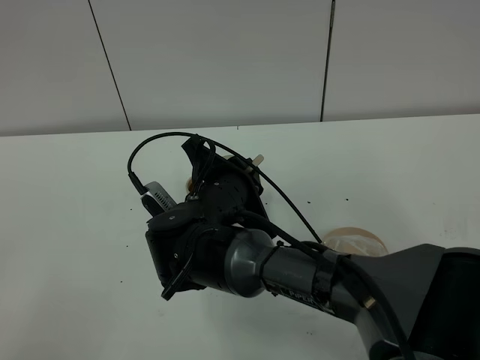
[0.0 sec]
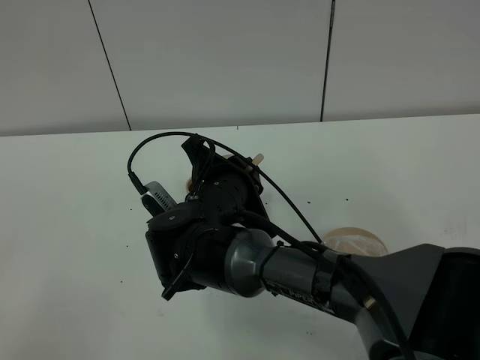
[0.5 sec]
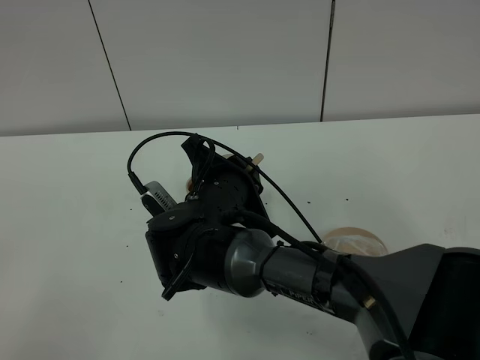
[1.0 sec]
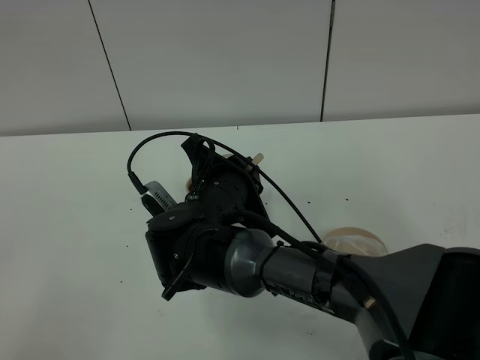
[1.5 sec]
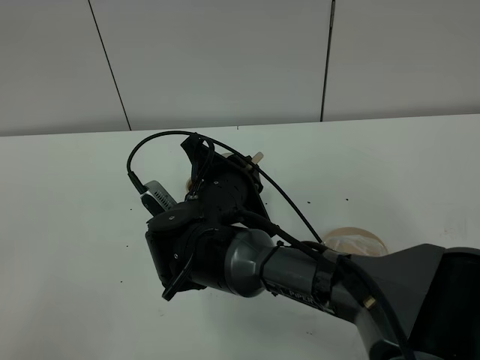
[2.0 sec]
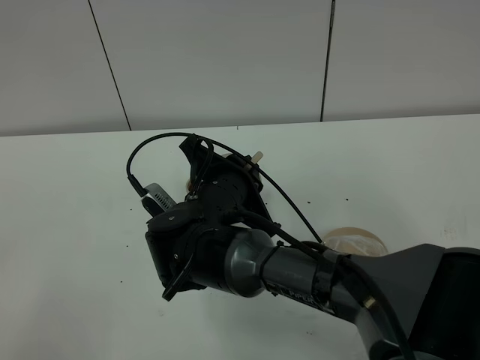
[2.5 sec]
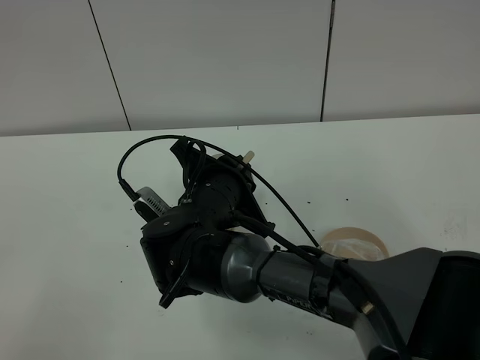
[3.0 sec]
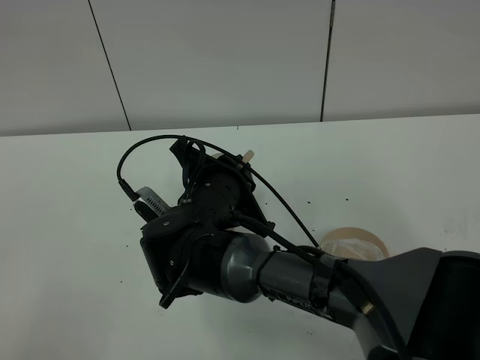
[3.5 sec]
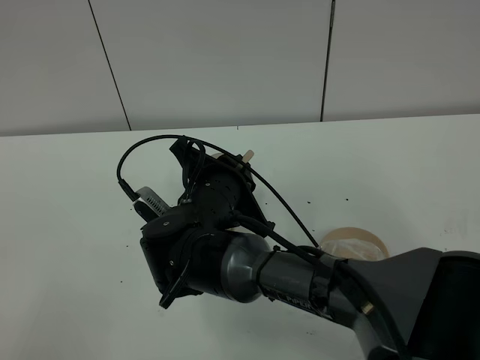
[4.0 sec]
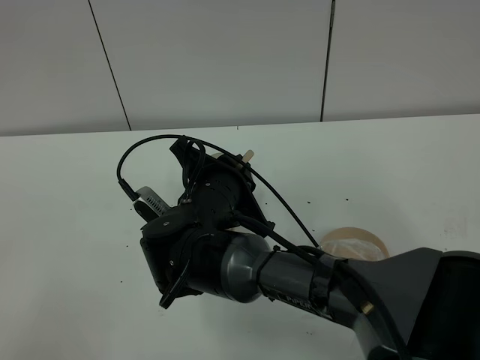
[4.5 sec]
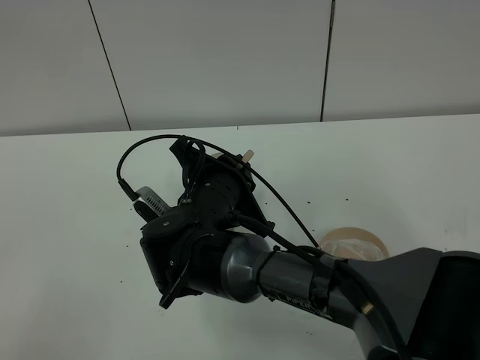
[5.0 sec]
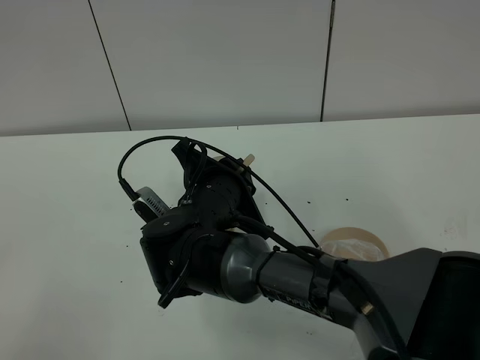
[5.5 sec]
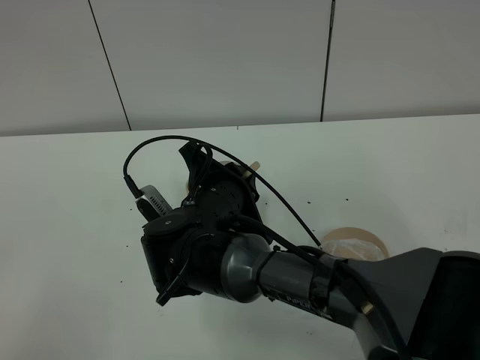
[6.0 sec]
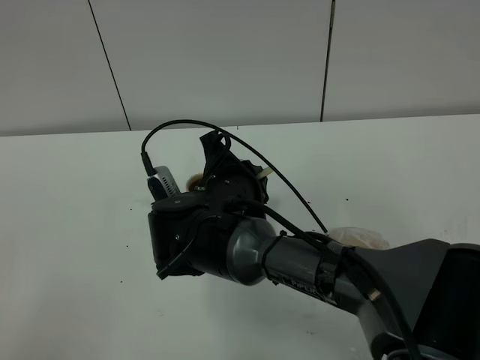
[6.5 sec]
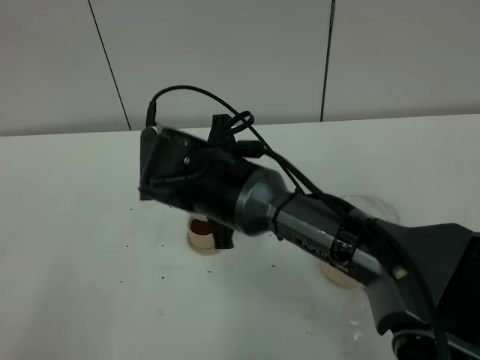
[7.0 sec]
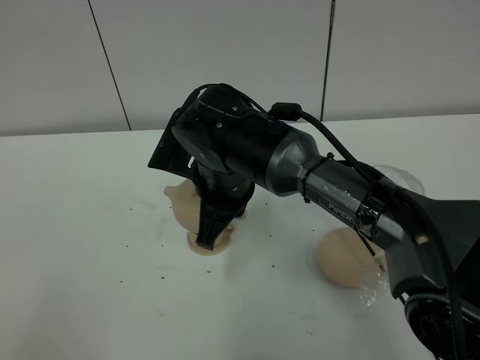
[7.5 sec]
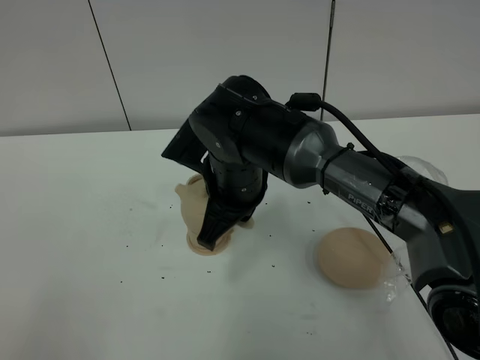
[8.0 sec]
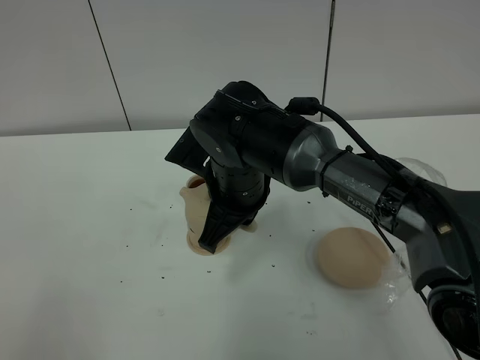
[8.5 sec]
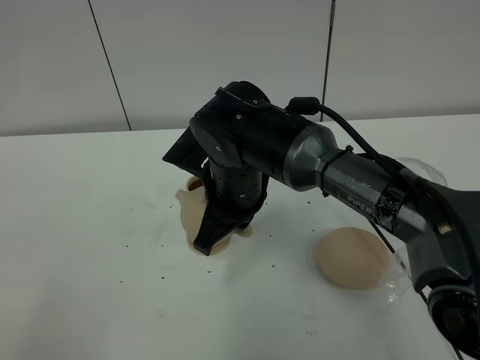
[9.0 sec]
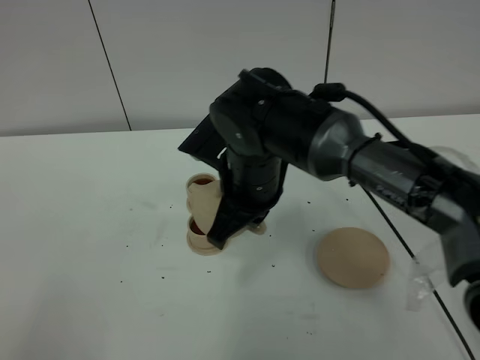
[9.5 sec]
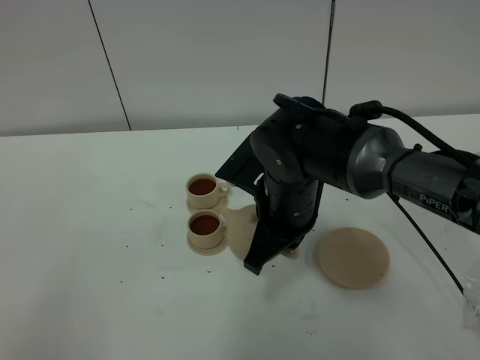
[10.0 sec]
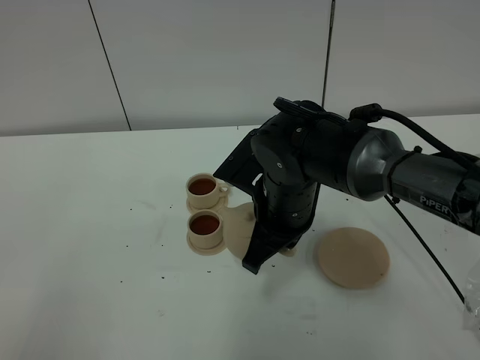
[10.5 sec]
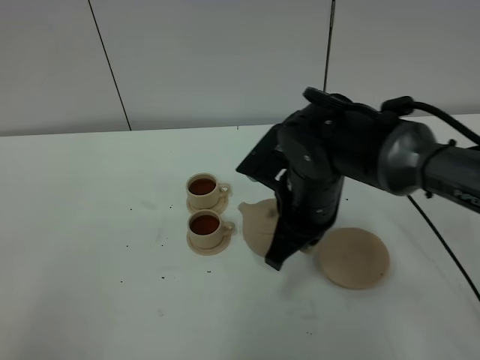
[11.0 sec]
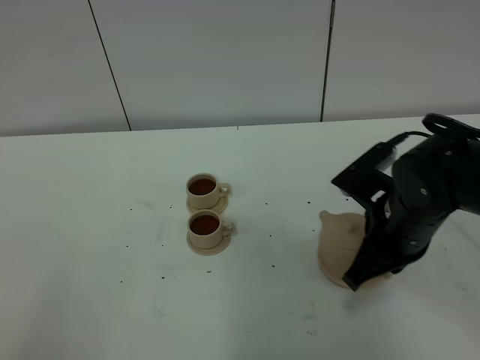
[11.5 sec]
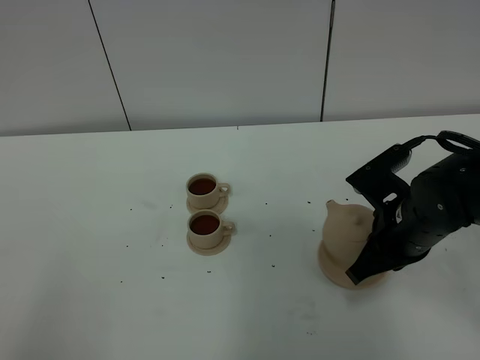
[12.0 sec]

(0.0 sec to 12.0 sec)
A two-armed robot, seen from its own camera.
Task of the whole recording: grasp the brown teapot and pour the tea into the two brown teacups one by one, put the brown teapot back in its original place.
Step, 0.0 sec - 7.0 sec: Pour tea into the teacup with the right gripper.
0.0 sec - 2.0 sec: Neither gripper changes place.
2.0 sec - 4.0 sec: The two grippers keep their place.
4.0 sec - 6.0 sec: The grippers make only small movements.
6.0 sec - 8.0 sec: The right gripper travels upward by about 5 cm.
8.0 sec - 10.0 sec: The right gripper travels to the right by roughly 5 cm.
10.0 sec - 12.0 sec: The right gripper moves to the right, approximately 15 cm.

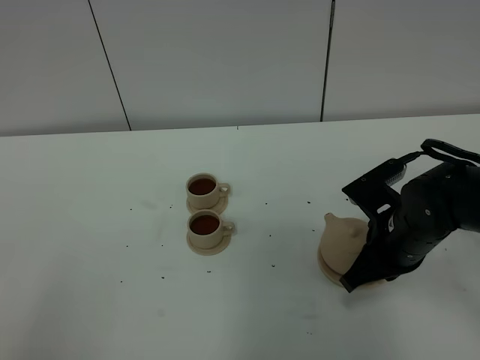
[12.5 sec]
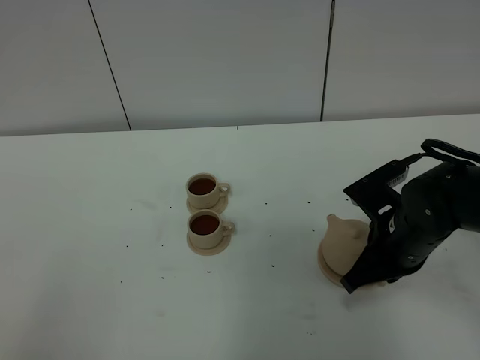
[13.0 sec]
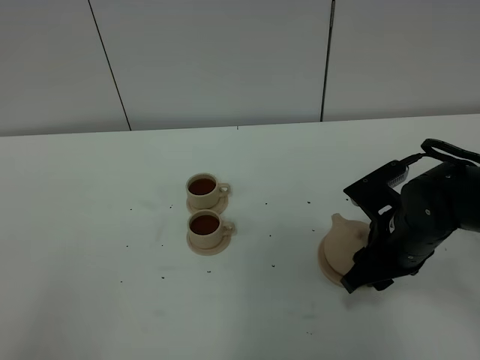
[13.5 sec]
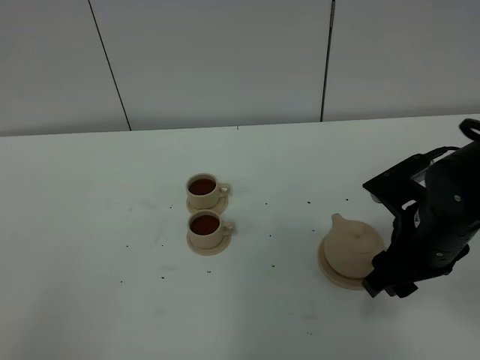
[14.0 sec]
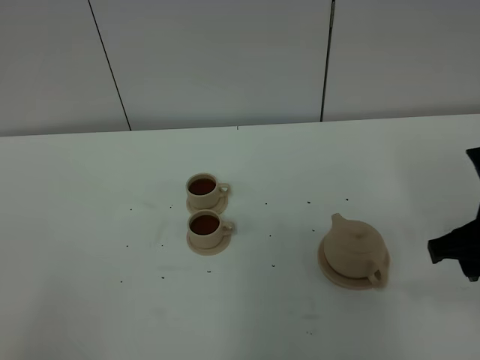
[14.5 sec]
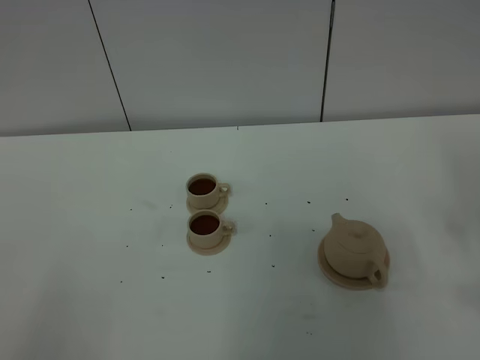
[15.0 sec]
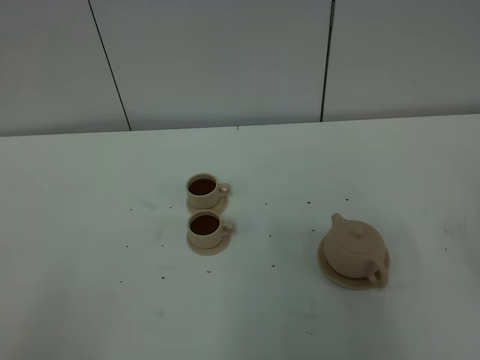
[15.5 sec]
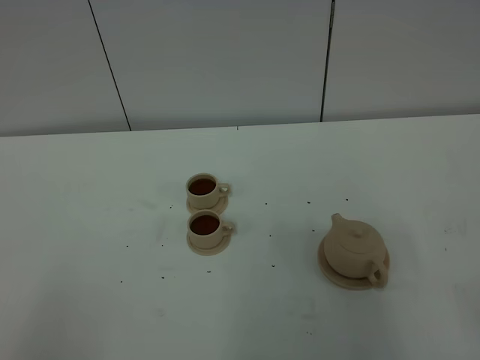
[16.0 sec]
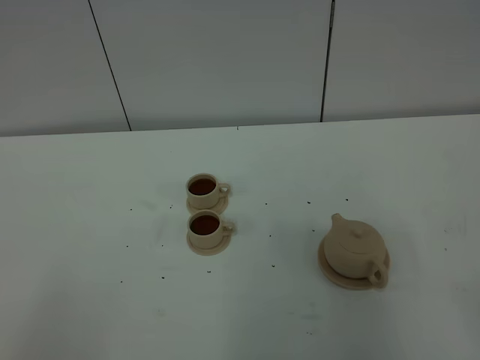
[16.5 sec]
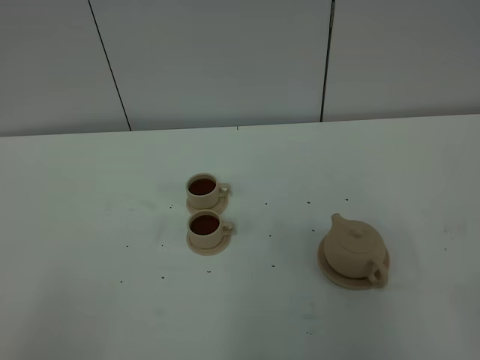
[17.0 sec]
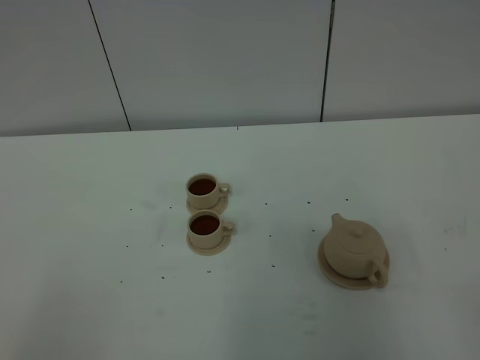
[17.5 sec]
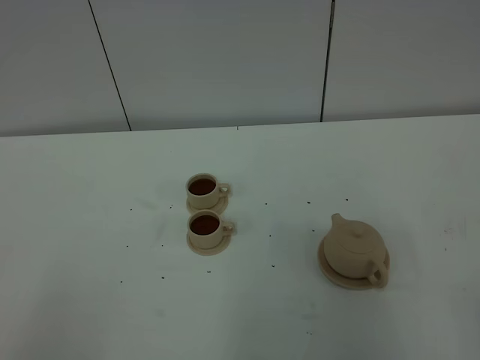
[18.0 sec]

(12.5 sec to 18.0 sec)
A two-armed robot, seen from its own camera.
Task of the whole recording: grasp the brown teapot and pour the tea into the two brown teacups one by one, put the brown teapot back in its original place.
12.5 sec - 14.5 sec: The right gripper heads upward and to the right, covering some 10 cm, and opens.
14.5 sec - 16.0 sec: The right gripper heads backward, covering approximately 20 cm.

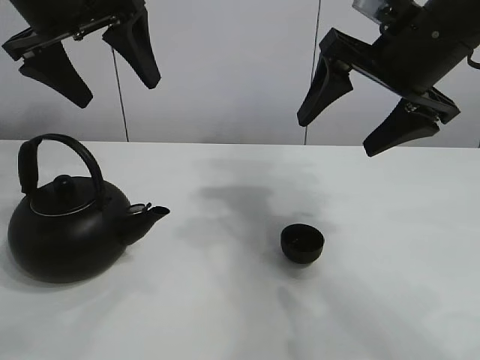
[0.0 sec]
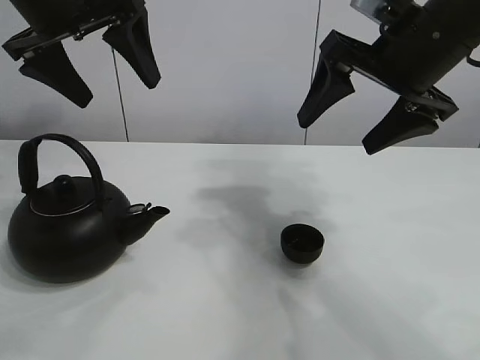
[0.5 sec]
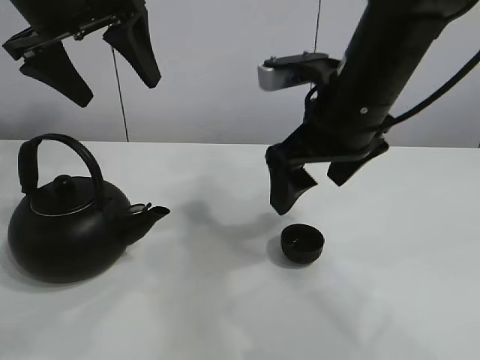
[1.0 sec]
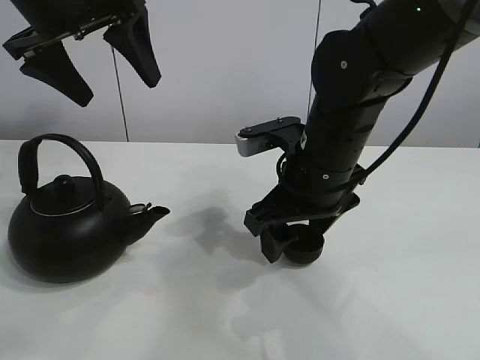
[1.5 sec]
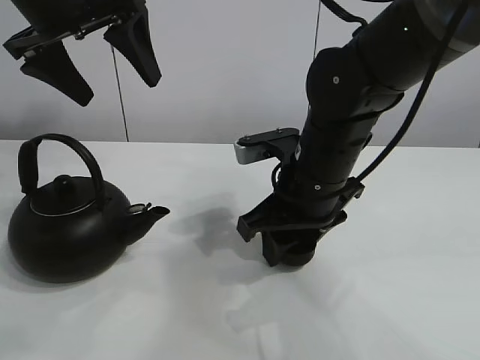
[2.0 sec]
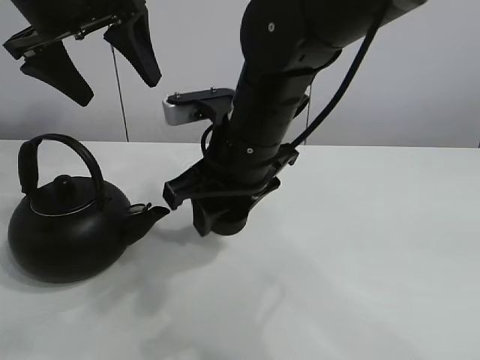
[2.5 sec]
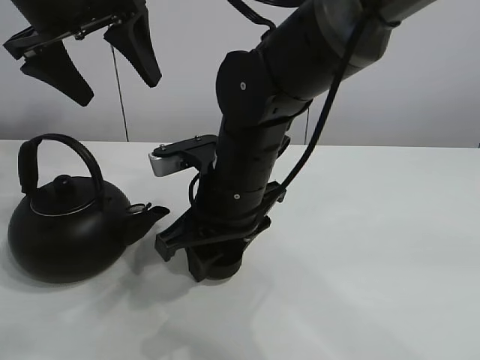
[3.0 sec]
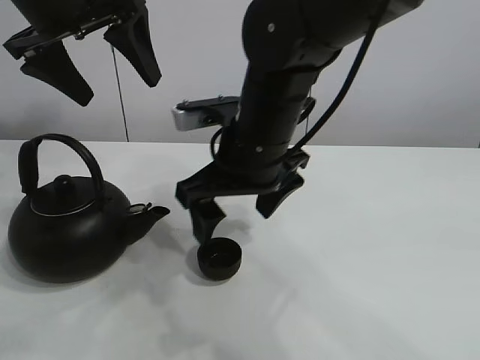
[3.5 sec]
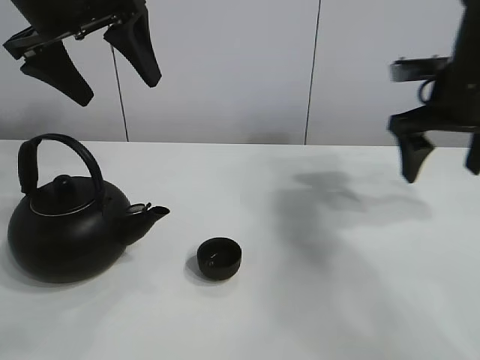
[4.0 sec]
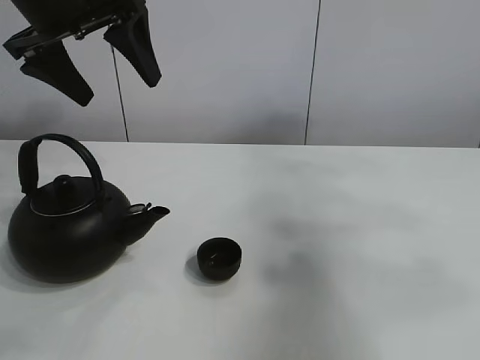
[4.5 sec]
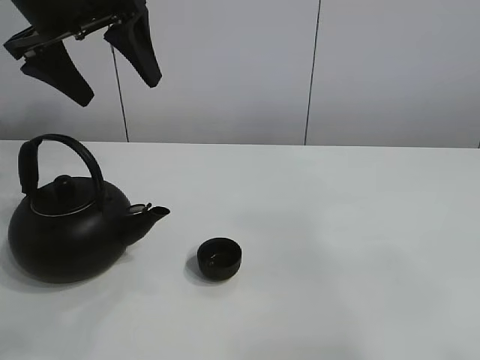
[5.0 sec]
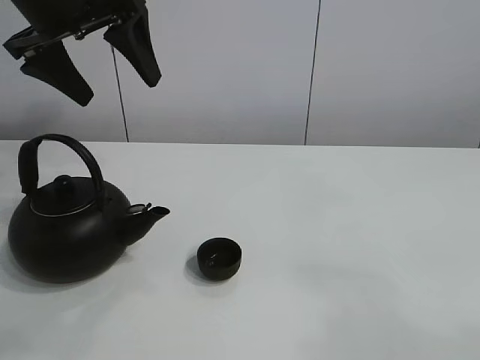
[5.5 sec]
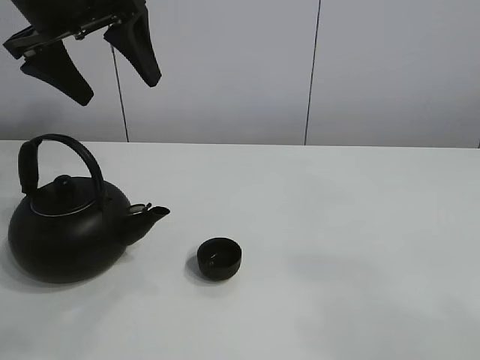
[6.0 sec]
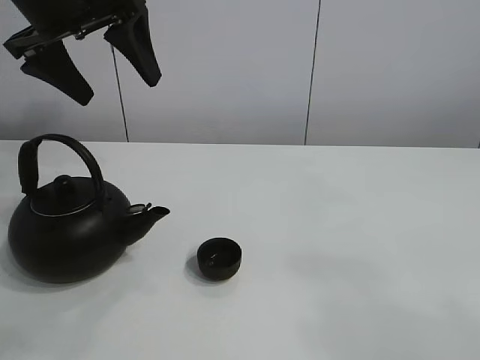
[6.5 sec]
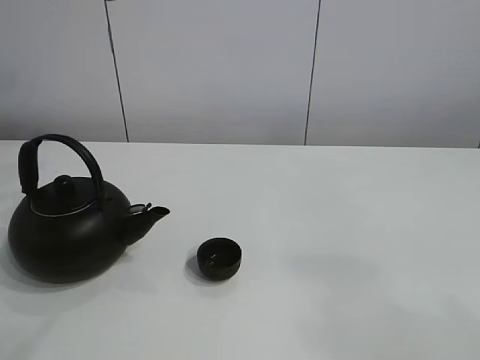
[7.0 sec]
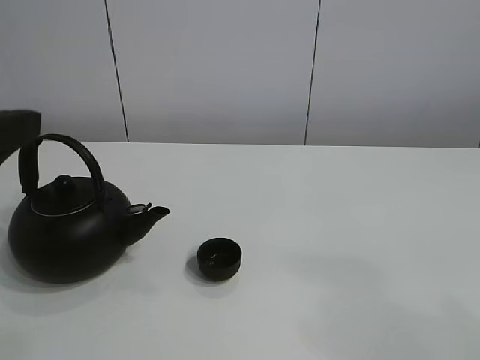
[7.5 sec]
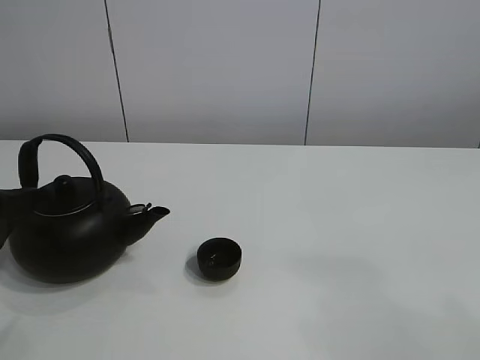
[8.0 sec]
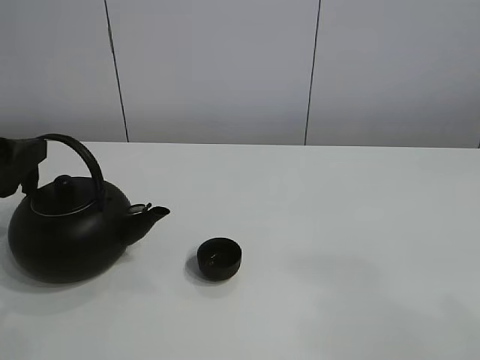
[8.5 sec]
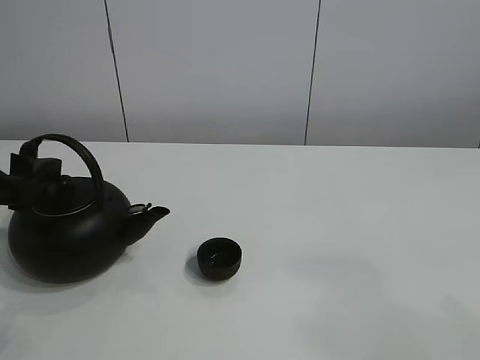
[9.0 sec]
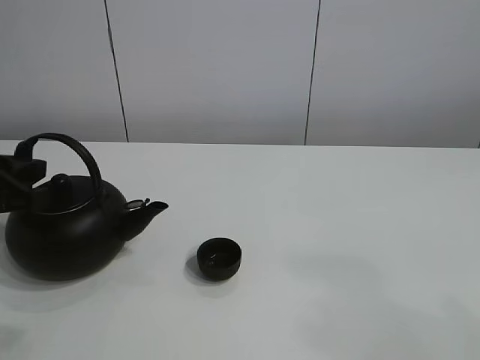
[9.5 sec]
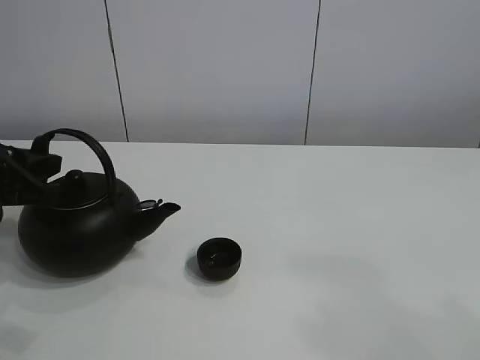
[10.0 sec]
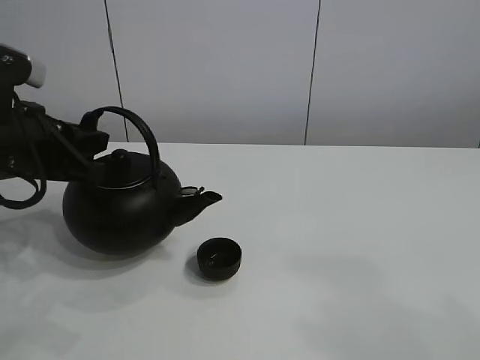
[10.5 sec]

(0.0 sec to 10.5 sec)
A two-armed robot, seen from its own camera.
Task of the whole recording: pour tea into the teacup.
Step, 0.0 sec - 2.0 sec: Pick up the teacup with the right gripper.
Step, 2.5 sec - 3.0 sec: Place the teacup in the center of view with the right gripper.
Step, 3.5 sec - 10.0 sec: Pick up the teapot with the left gripper.
2.0 sec - 4.0 sec: The right gripper moves to the right and upward, about 20 cm, and opens up.
4.0 sec - 6.5 sec: The right gripper goes roughly 40 cm backward.
6.5 sec - 8.5 sec: The left gripper is displaced downward, backward and to the left by approximately 20 cm.
8.5 sec - 10.5 sec: The left gripper shifts roughly 10 cm to the right and forward, and closes up.
